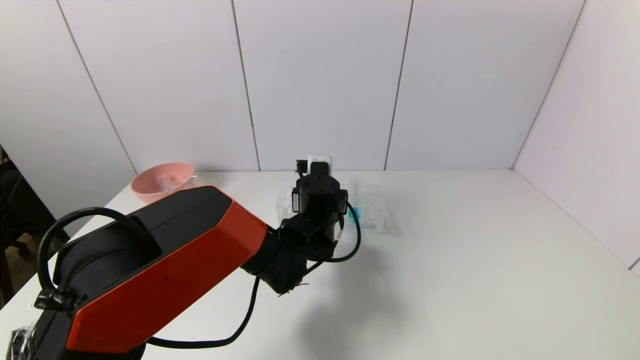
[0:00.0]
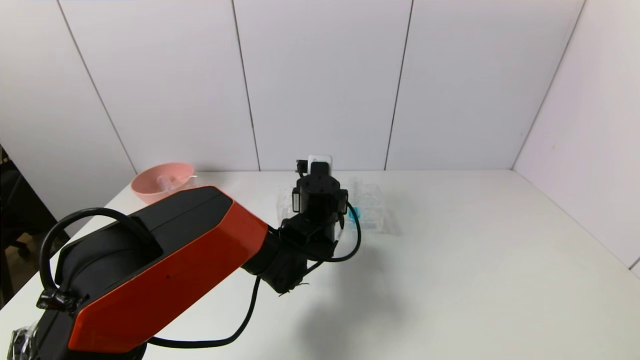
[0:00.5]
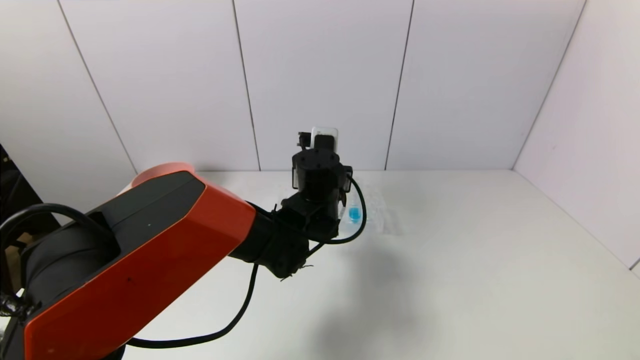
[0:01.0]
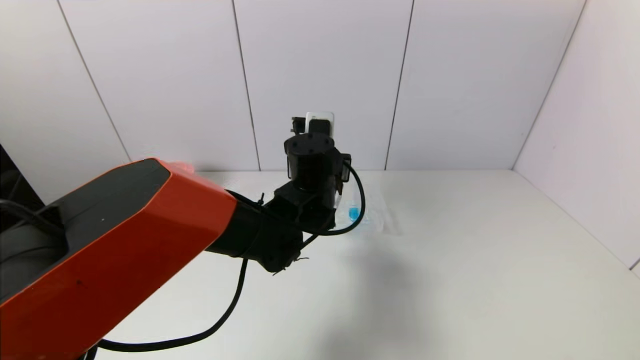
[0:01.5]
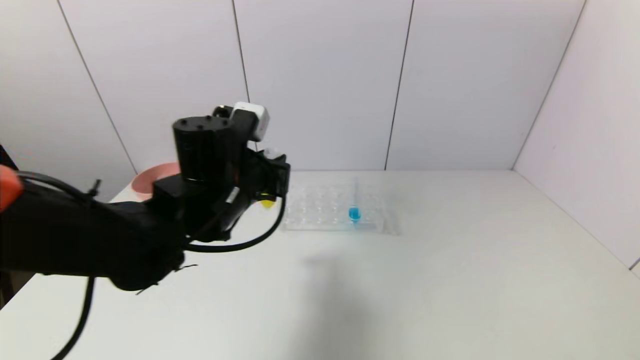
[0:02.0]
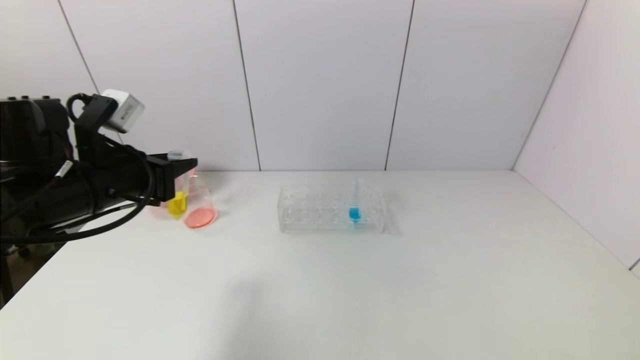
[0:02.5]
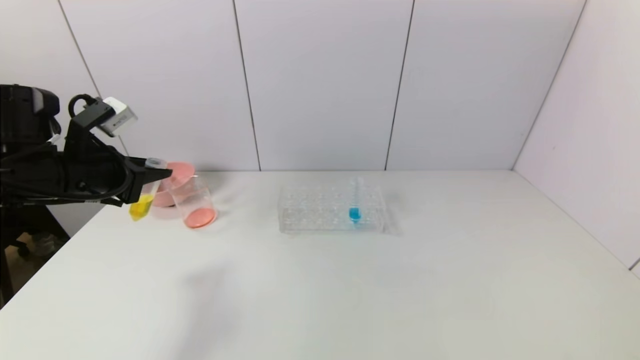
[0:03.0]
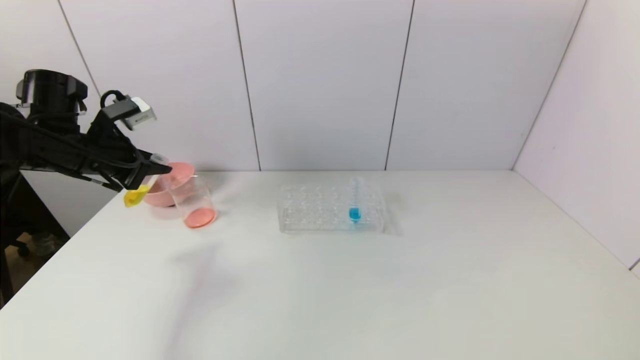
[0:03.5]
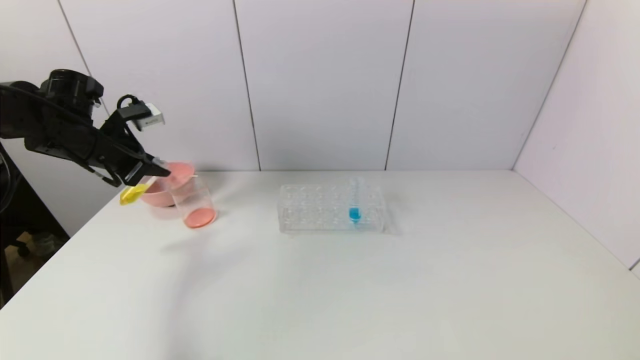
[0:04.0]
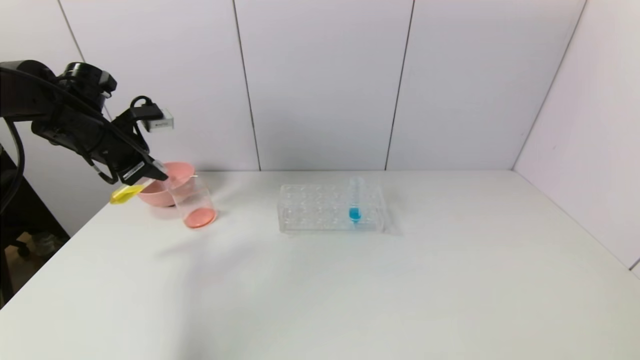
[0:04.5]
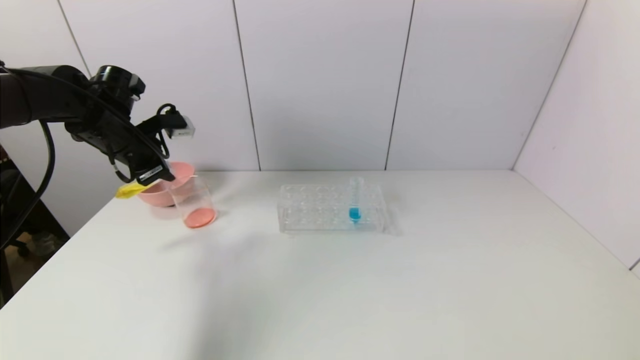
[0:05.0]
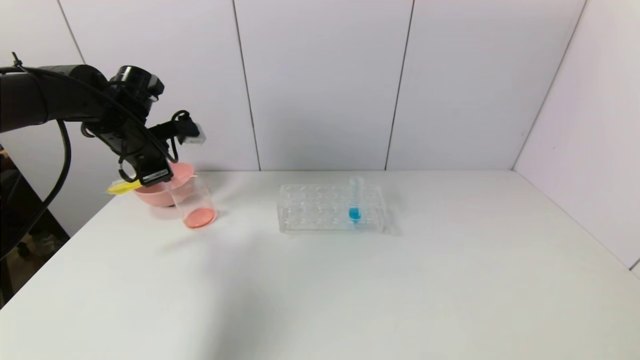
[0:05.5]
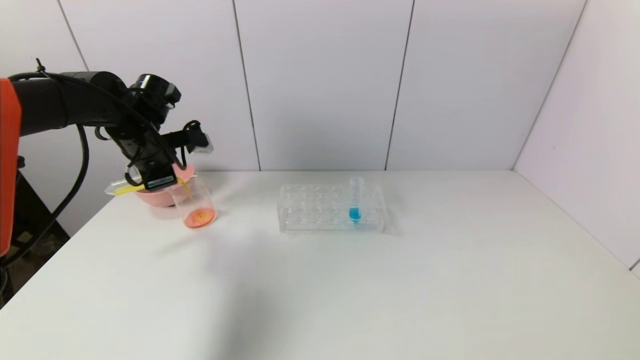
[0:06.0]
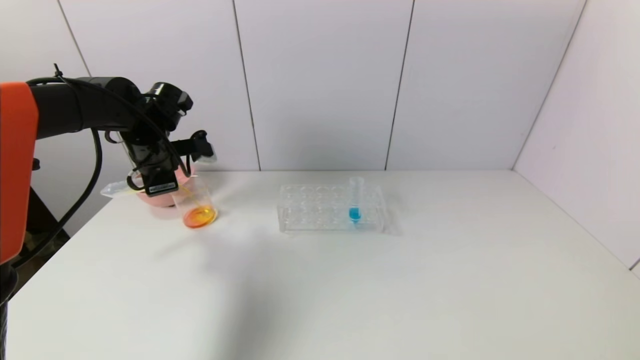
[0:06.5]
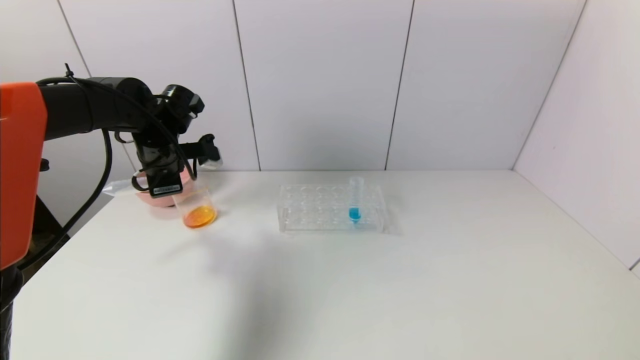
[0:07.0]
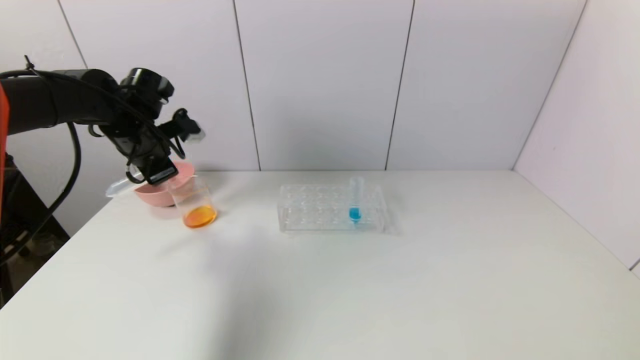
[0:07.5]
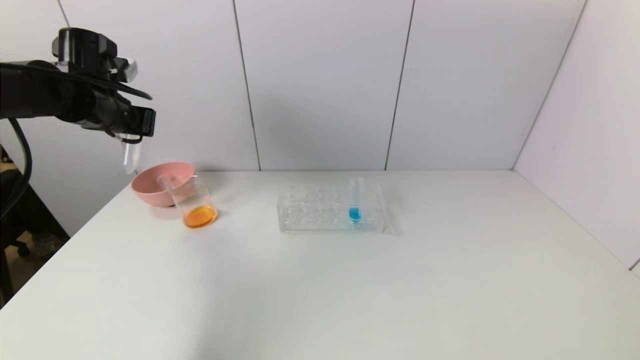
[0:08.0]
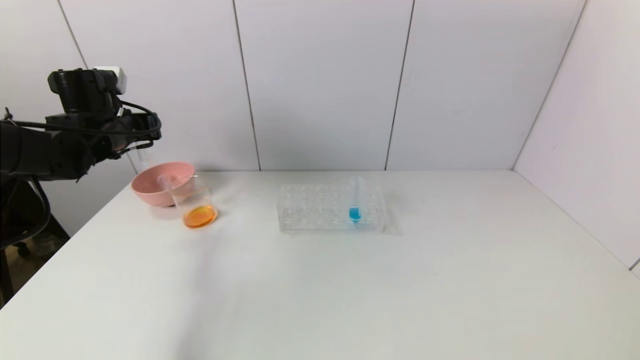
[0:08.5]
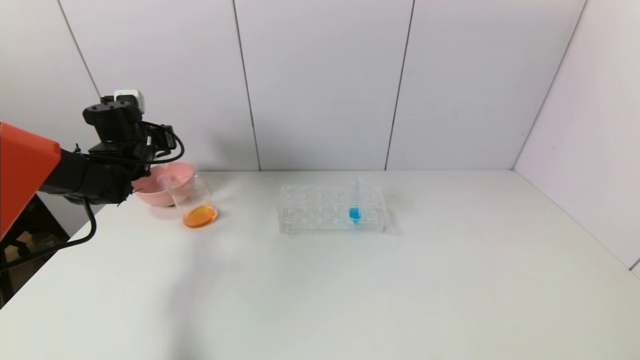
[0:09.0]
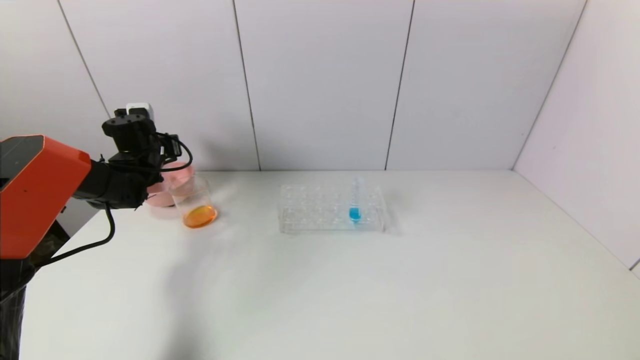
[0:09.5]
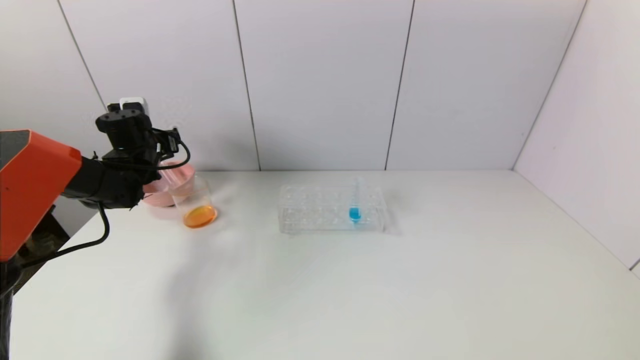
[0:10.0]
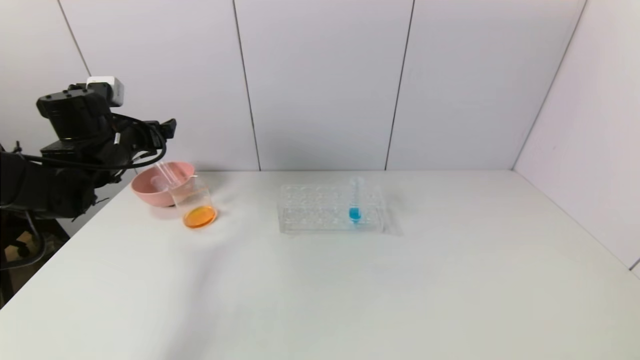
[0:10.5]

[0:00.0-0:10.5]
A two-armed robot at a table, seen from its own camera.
Task of the whole recording: pick up the test tube with yellow pigment and the test tube with red pigment by grippers and pour them into the beaker.
Step, 0:00.5 to 0:06.5: Pour the yellow reagent into the graduated cylinder with the left gripper.
Step, 0:07.0 to 0:09.5: Place the test tube into the pink bowl with the left gripper.
0:00.0 to 0:02.0: The left gripper travels to the left, upward and backward by approximately 20 cm.
0:02.0 to 0:04.0: The left gripper is displaced to the left and forward by approximately 25 cm.
0:04.0 to 0:06.5: The left gripper heads to the right, covering about 10 cm.
0:06.5 to 0:08.5: The left gripper travels to the left by some 5 cm.
0:08.5 to 0:10.5: The left gripper goes forward and returns, approximately 5 cm each way, and opens its fingers.

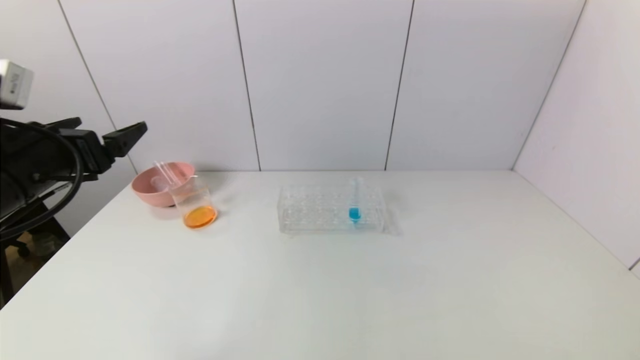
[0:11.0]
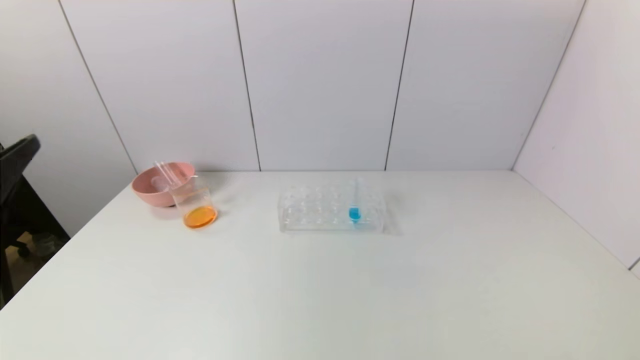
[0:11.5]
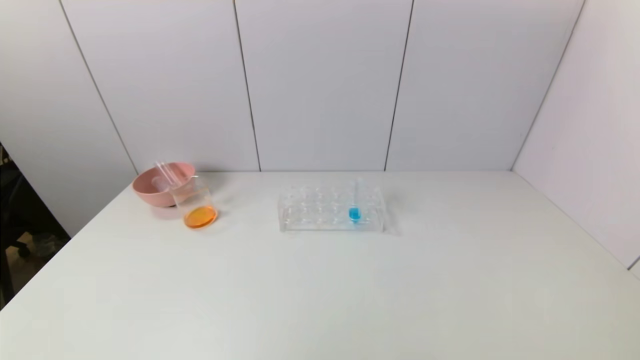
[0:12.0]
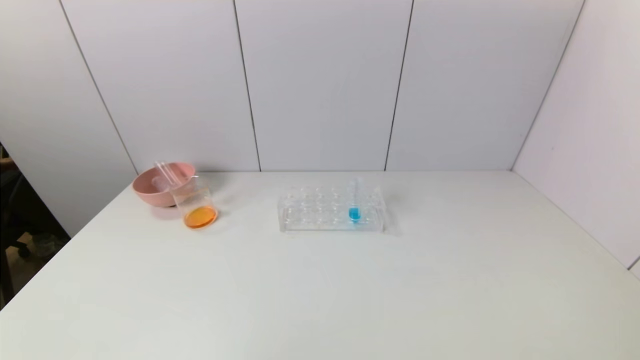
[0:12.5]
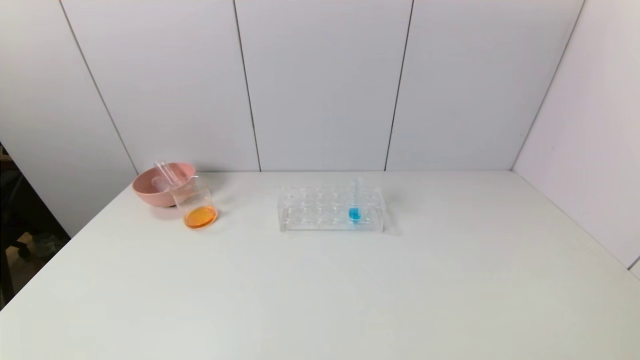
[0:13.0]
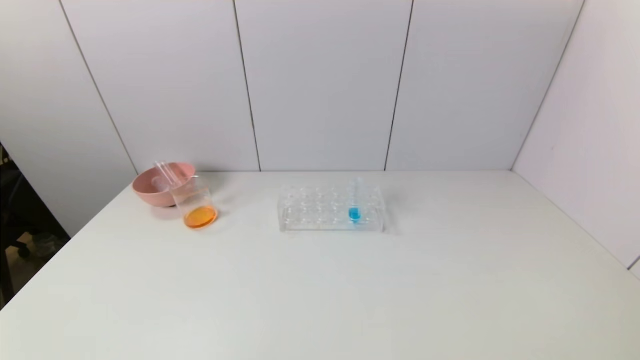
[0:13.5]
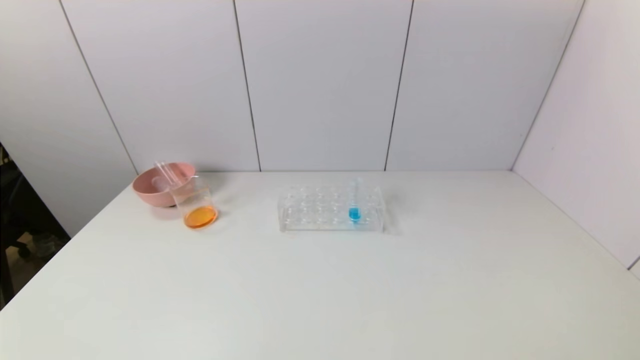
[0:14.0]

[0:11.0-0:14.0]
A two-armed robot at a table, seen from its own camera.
Task of the whole recording: pick up the test tube with yellow pigment and the test tube with red pigment by grippers and pour them into the beaker.
0:11.0 to 0:12.5: The left gripper heads backward and downward, covering approximately 30 cm.
